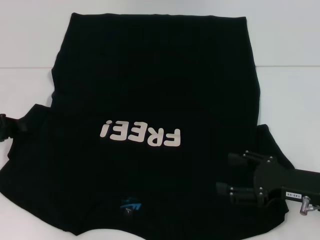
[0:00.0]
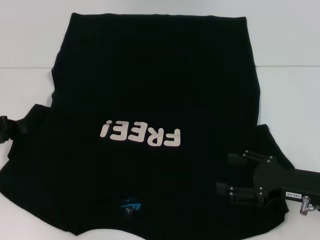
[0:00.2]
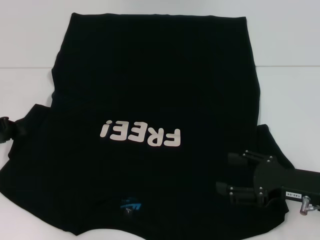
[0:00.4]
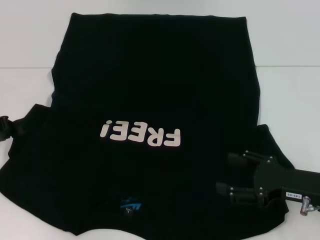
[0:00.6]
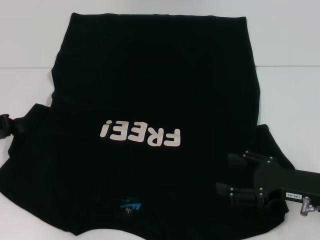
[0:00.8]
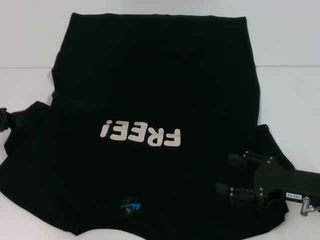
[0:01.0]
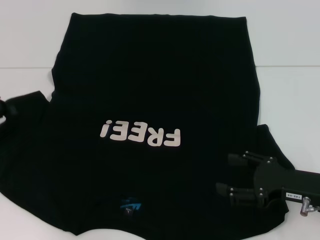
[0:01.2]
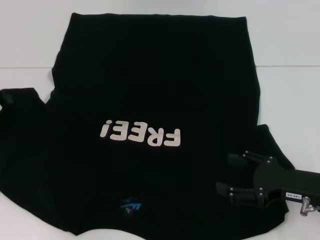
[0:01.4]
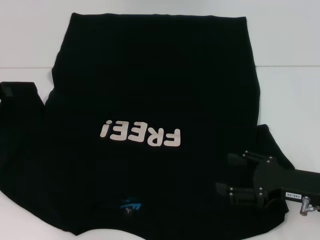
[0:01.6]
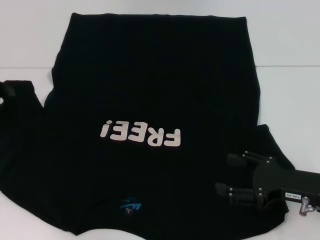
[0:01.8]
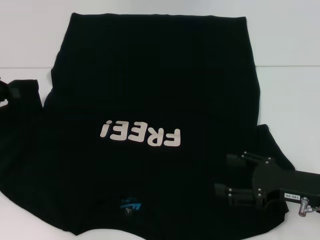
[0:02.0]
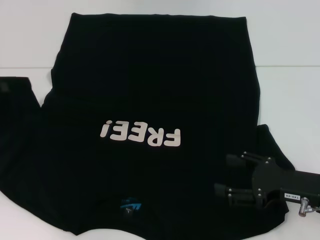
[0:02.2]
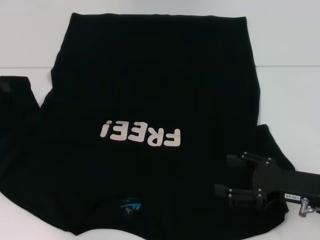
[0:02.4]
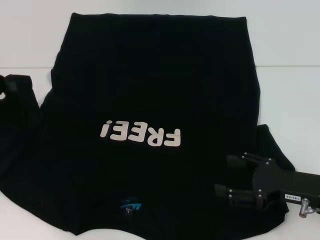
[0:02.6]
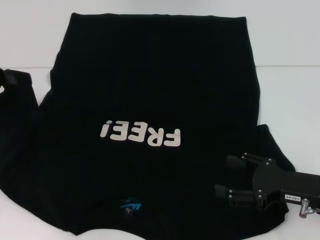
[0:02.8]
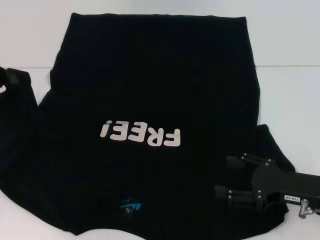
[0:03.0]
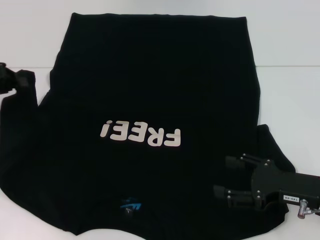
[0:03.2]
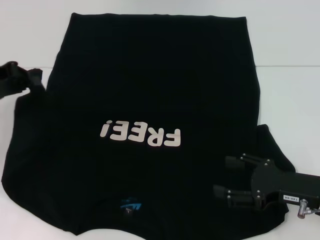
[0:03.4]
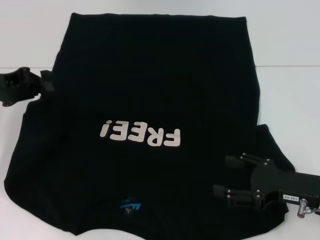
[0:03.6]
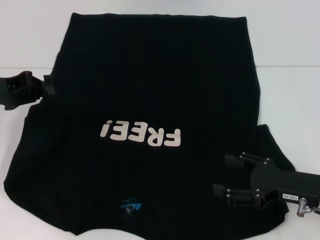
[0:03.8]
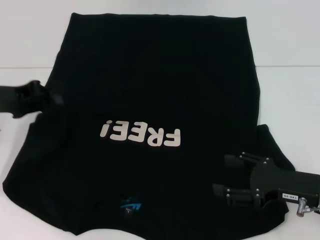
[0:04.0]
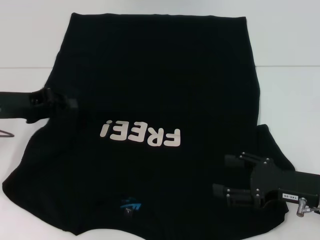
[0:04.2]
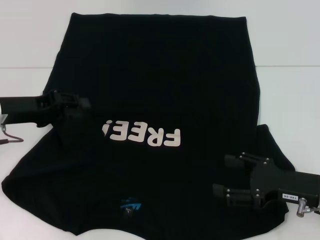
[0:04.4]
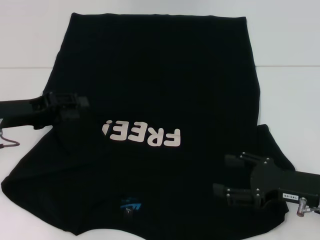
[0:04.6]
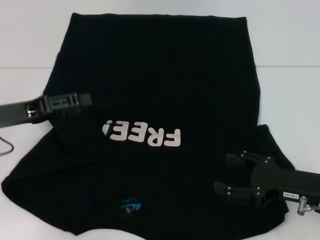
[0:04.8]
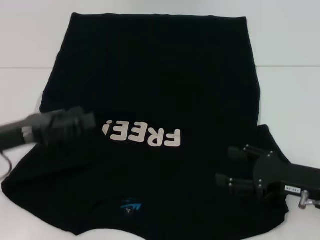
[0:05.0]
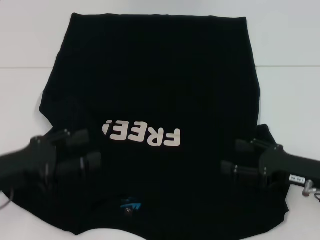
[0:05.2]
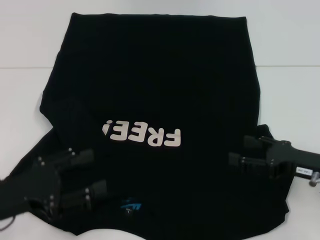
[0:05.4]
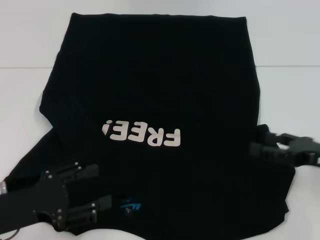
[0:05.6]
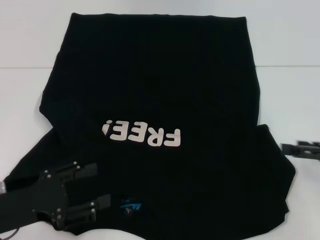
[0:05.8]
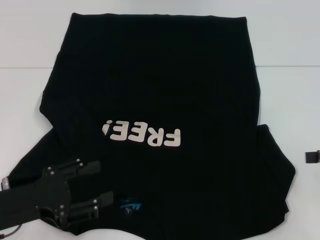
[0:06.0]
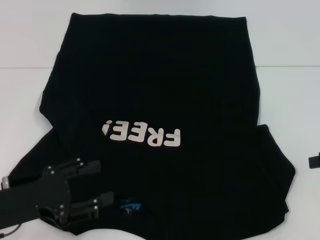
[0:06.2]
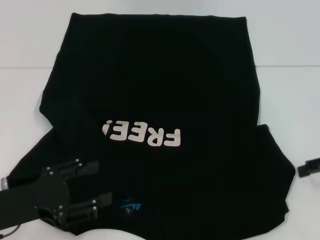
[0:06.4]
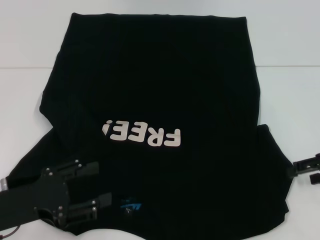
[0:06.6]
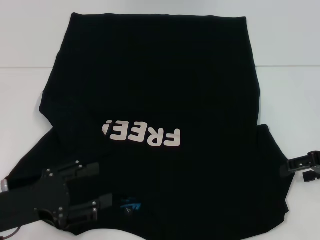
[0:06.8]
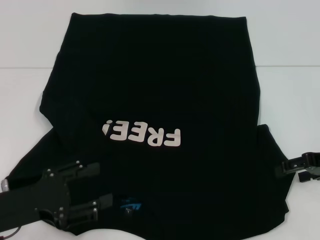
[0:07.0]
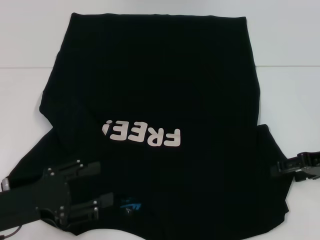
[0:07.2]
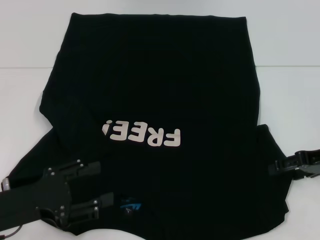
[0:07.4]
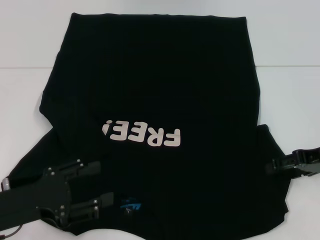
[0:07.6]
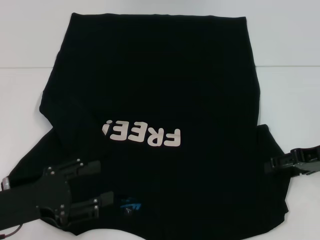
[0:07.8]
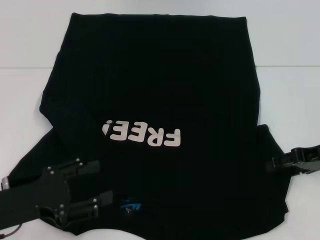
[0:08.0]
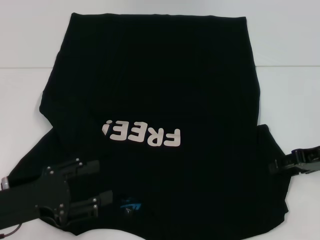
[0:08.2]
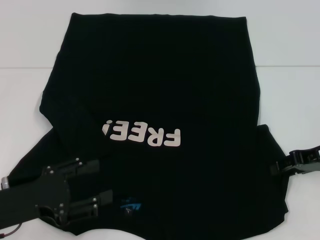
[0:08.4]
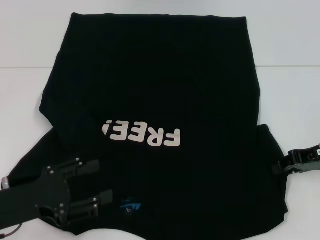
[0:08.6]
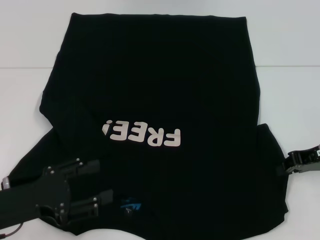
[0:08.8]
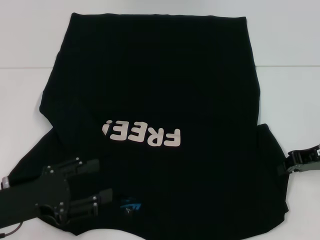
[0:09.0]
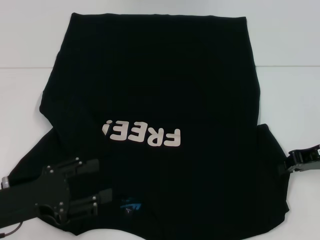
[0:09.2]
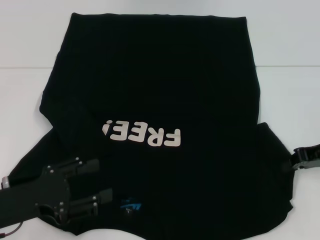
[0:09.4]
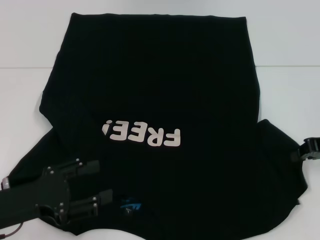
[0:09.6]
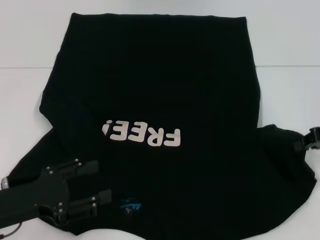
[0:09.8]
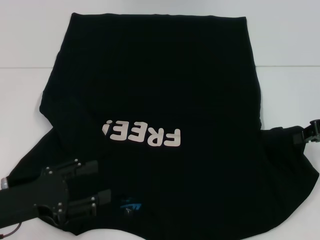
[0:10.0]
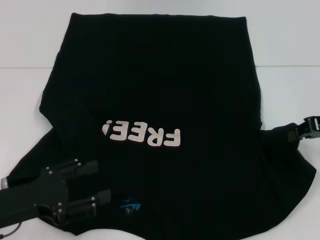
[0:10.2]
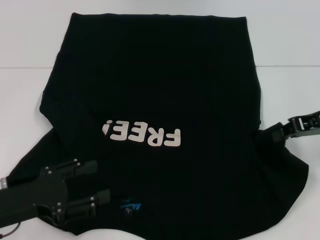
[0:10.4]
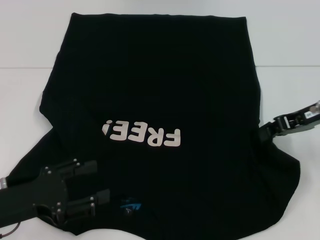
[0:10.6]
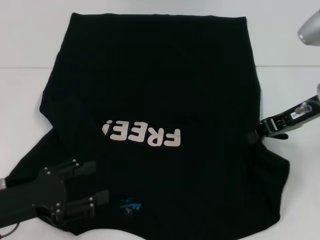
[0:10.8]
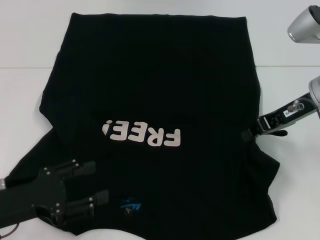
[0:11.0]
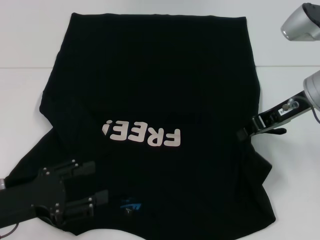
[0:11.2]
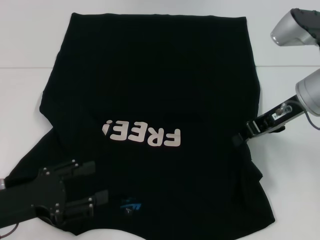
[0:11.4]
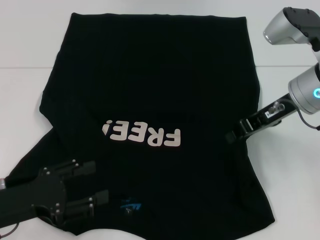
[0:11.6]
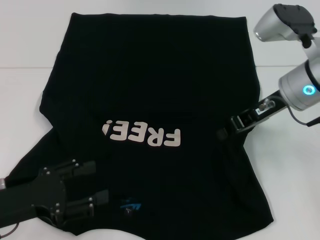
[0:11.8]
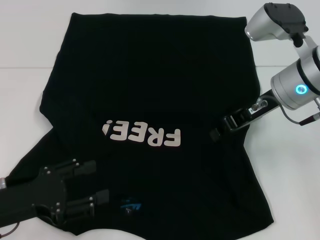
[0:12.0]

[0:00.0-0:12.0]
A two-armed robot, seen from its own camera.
Step, 0:00.0 to 0:05.0: Fold the bottom left sleeve with your left hand.
0:00.0 to 0:01.6: The left gripper heads upward, covering roughly 5 cm.
0:01.6 to 0:03.0: The grippers stay close to where they were, moving slightly.
0:03.0 to 0:04.4: The left gripper travels to the right and downward by approximately 10 cm.
0:04.4 to 0:06.0: The left gripper goes approximately 15 cm backward and downward, and opens up. The right gripper shifts about 15 cm to the right and upward.
0:06.0 to 0:07.6: The right gripper heads to the left and forward, covering roughly 10 cm.
0:07.6 to 0:09.0: The right gripper closes.
0:09.0 to 0:10.4: The right gripper is displaced upward by approximately 5 cm.
0:10.4 to 0:12.0: The right gripper travels to the left by approximately 10 cm.

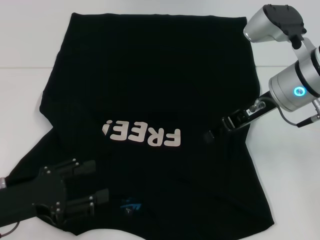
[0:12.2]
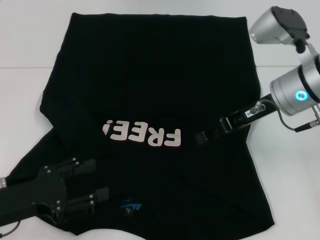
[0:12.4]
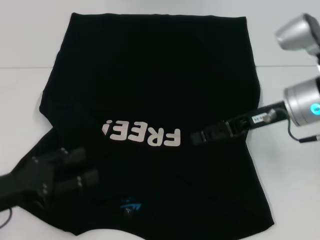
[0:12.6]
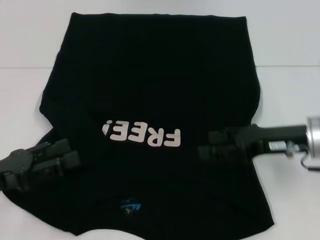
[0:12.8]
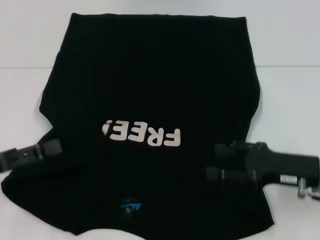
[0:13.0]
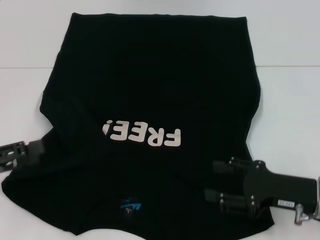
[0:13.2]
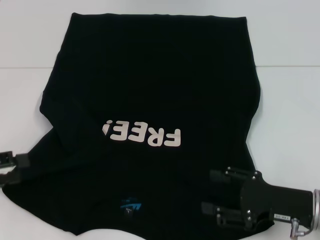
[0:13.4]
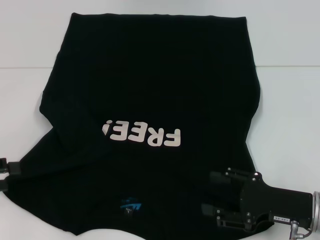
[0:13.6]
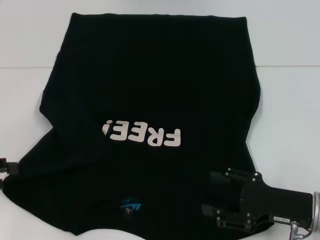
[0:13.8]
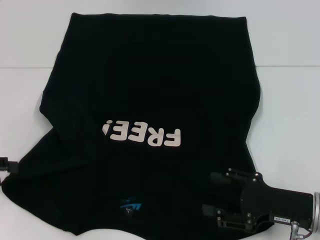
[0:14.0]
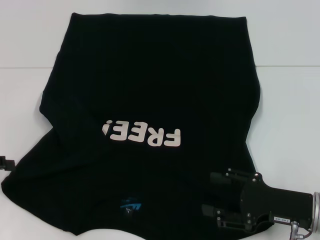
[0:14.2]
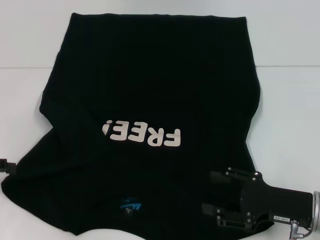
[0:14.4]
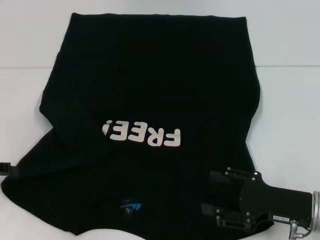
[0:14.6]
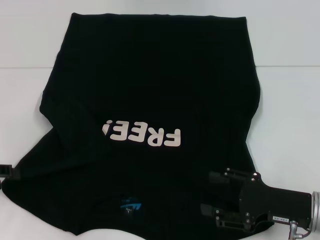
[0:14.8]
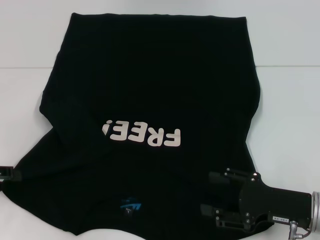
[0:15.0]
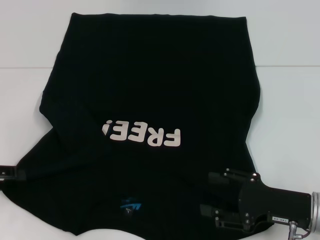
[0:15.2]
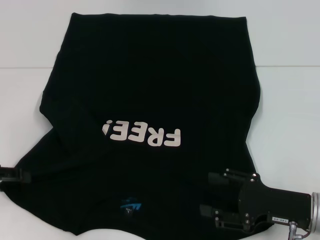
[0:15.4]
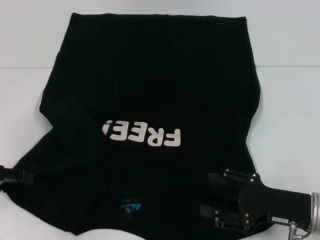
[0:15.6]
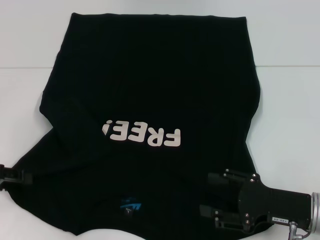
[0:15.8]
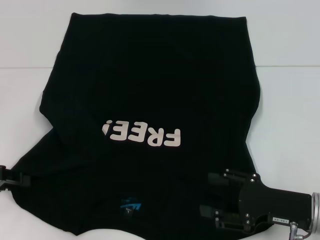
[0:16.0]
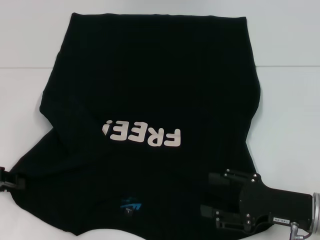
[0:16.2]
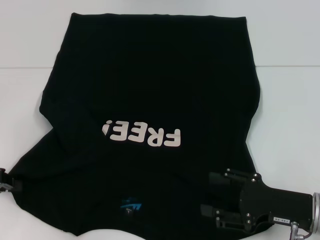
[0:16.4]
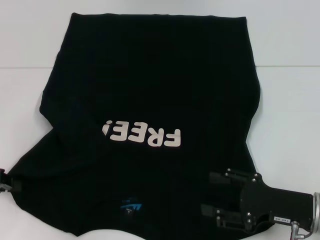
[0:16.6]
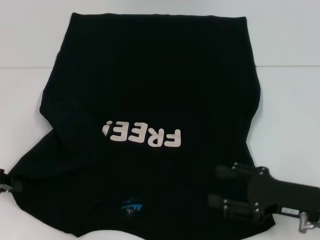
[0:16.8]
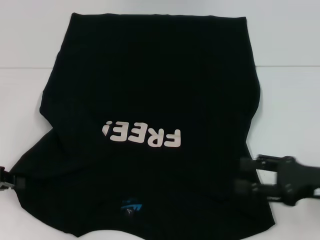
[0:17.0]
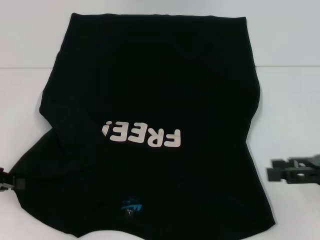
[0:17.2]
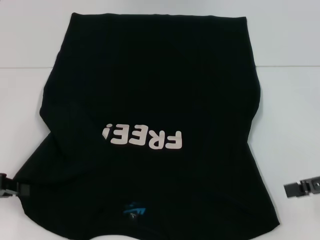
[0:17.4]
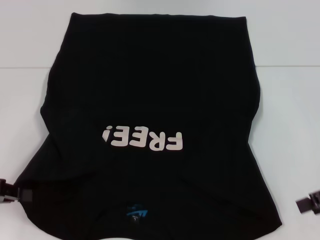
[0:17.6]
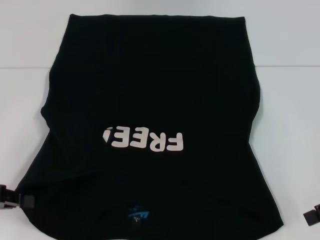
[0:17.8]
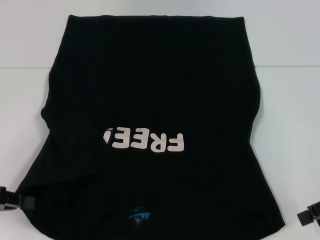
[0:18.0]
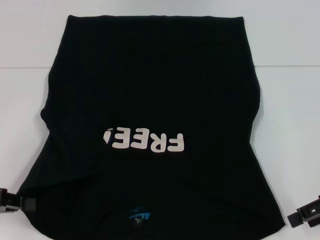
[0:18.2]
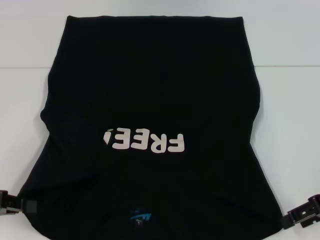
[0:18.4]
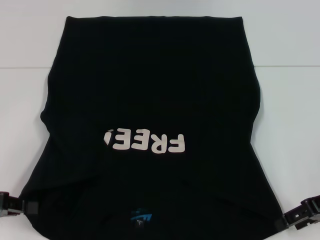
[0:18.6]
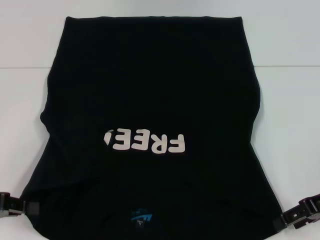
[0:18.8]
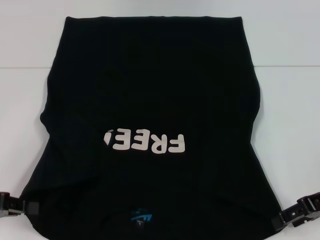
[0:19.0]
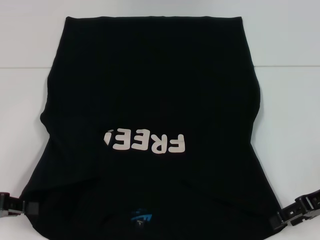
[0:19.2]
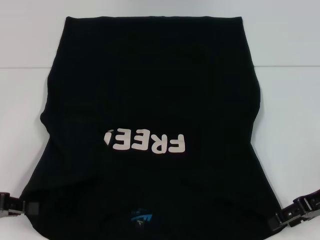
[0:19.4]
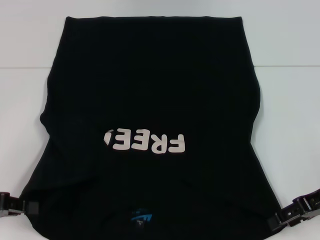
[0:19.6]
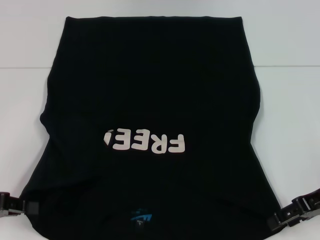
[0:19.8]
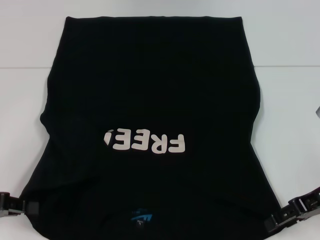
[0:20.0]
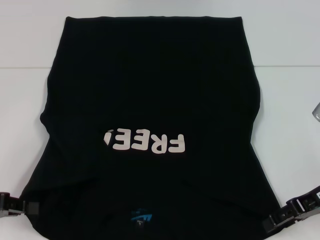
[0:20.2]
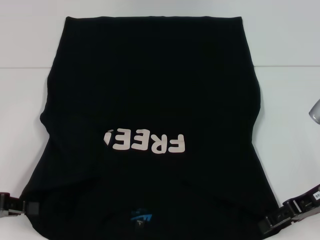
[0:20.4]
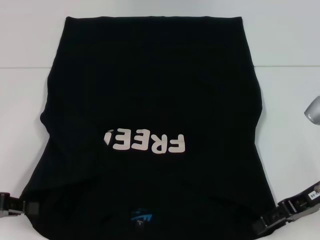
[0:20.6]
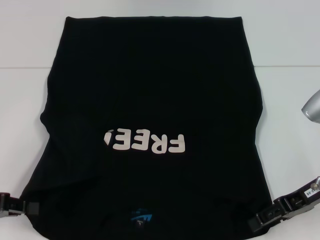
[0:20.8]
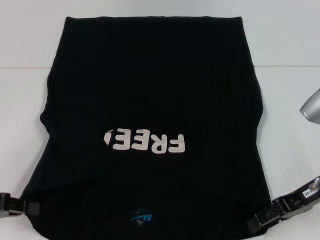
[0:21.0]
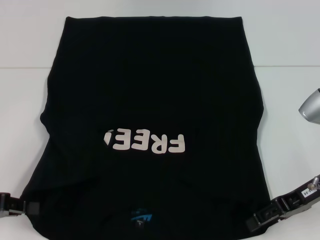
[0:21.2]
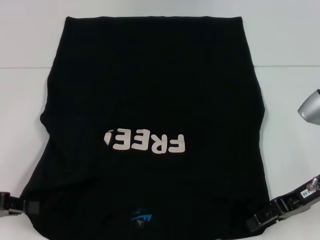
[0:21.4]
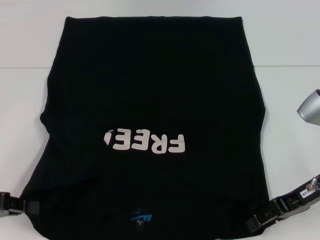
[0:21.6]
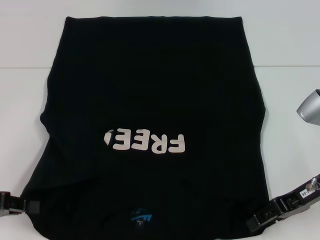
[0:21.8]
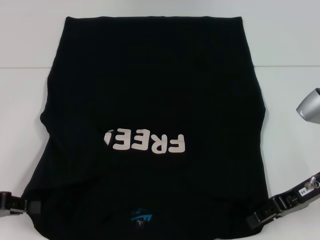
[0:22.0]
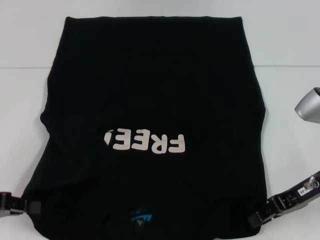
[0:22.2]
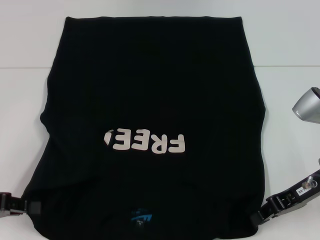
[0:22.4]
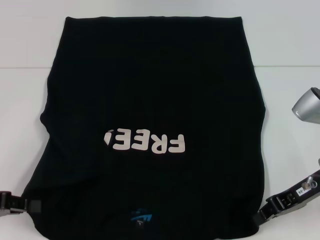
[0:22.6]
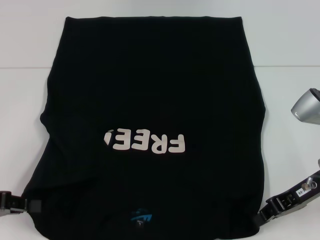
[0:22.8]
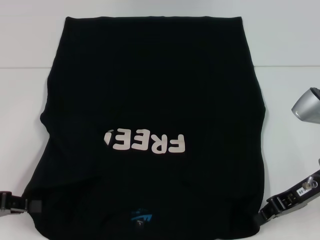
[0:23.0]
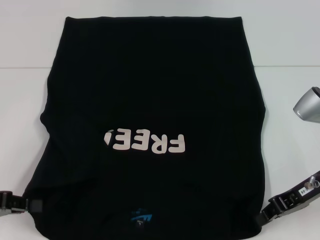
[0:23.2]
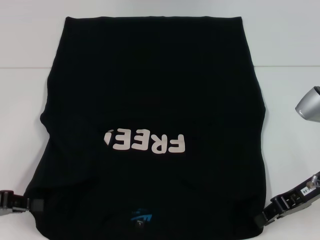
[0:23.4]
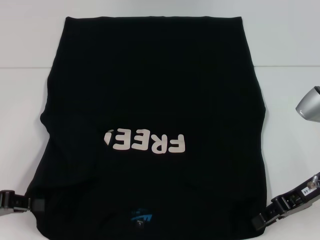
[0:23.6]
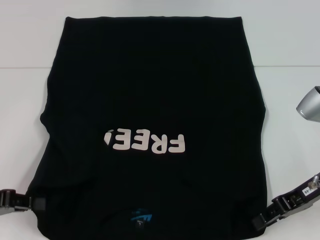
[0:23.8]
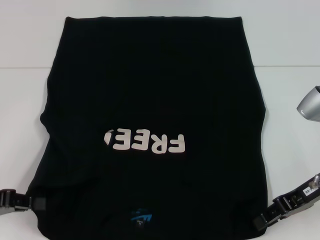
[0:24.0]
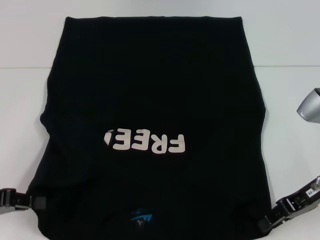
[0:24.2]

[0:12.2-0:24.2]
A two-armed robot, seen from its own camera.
Step, 0:13.4 to 0:21.2: Grab the bottom left corner with your left hand.
Step, 0:21.4 to 0:23.2: Grab the bottom right corner with your right hand.
0:12.2 to 0:13.8: The left gripper goes about 10 cm to the left. Meanwhile the right gripper travels backward, downward and to the right by about 20 cm, and opens.
0:13.8 to 0:15.2: The grippers make only small movements.
0:15.2 to 0:16.6: The left gripper closes.
0:16.6 to 0:18.2: The right gripper travels upward, to the right and forward by roughly 15 cm.
0:18.2 to 0:19.8: The grippers stay close to where they were, moving slightly.
0:19.8 to 0:21.2: The grippers move only a little.
0:21.2 to 0:22.6: The right gripper closes its fingers.
0:22.6 to 0:24.2: Neither gripper changes place.
